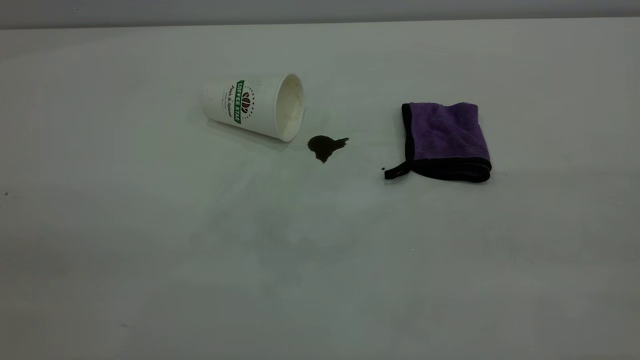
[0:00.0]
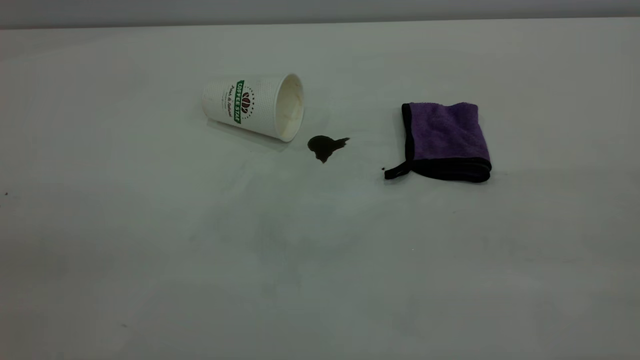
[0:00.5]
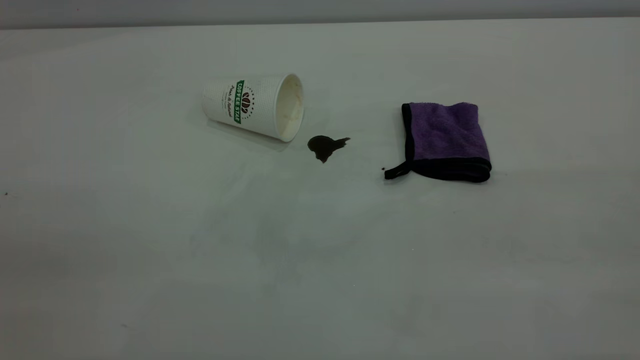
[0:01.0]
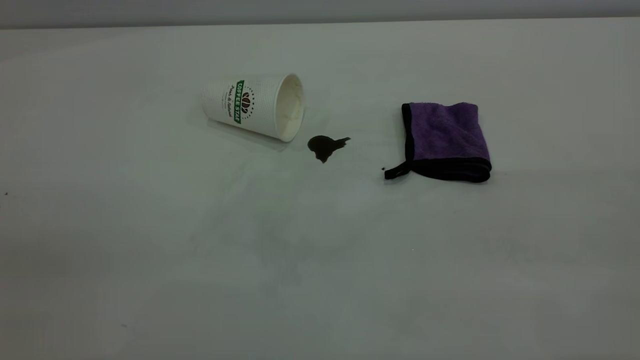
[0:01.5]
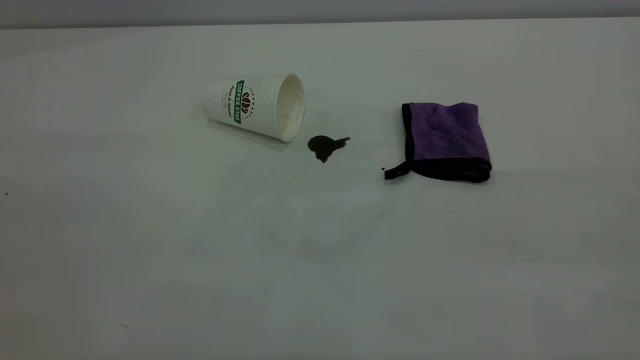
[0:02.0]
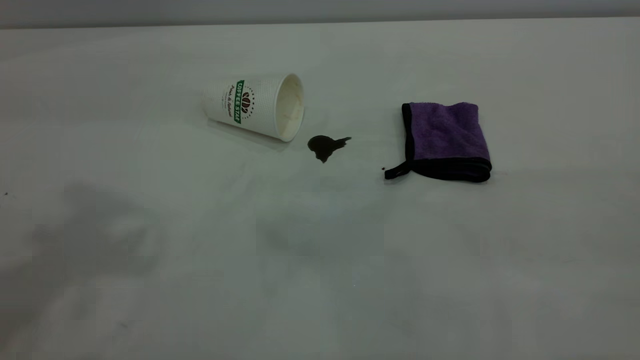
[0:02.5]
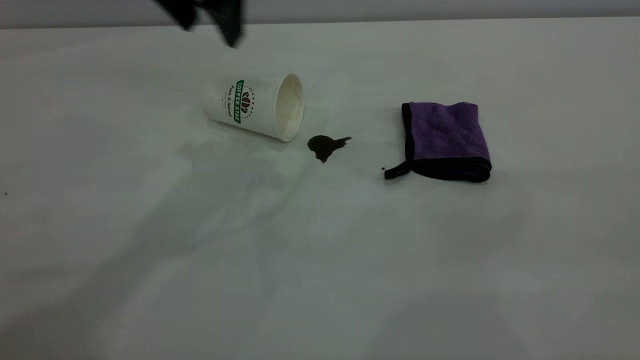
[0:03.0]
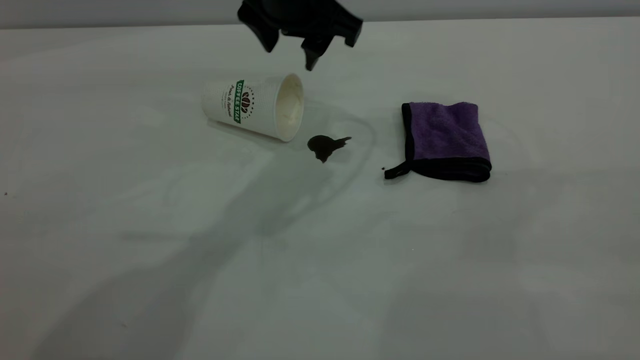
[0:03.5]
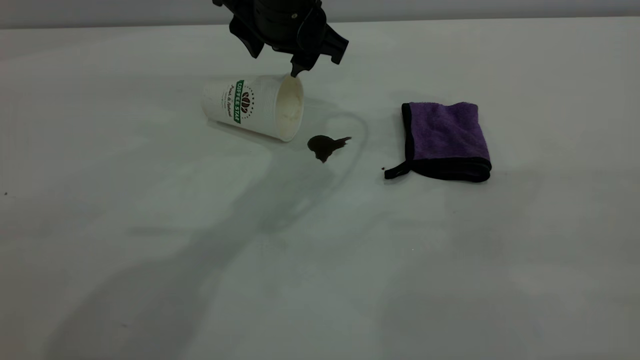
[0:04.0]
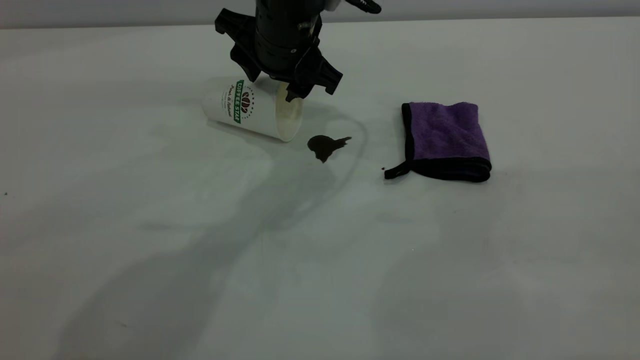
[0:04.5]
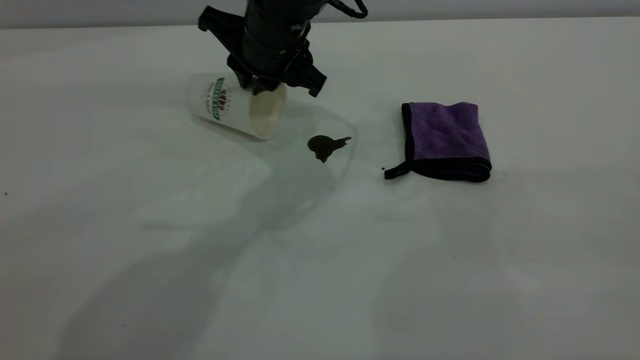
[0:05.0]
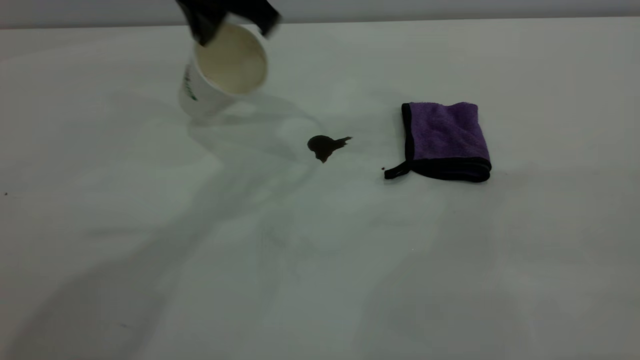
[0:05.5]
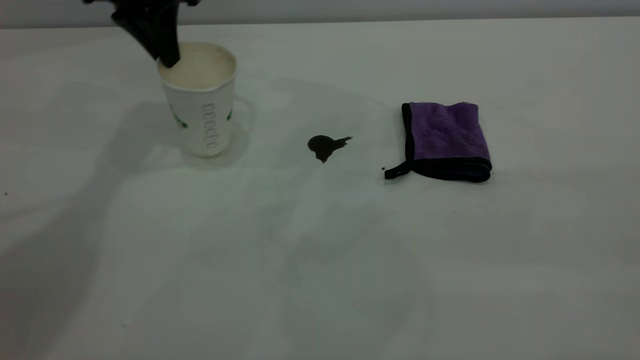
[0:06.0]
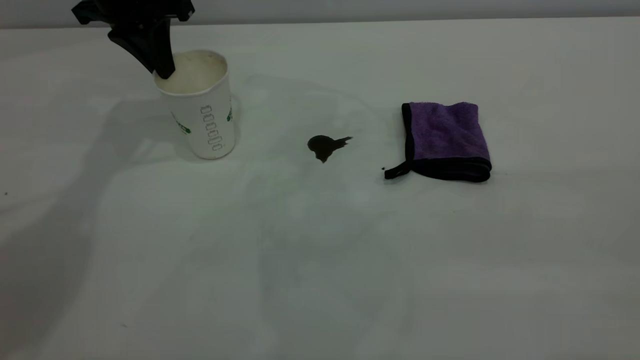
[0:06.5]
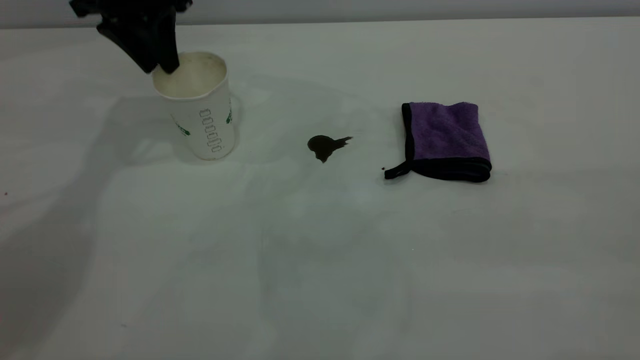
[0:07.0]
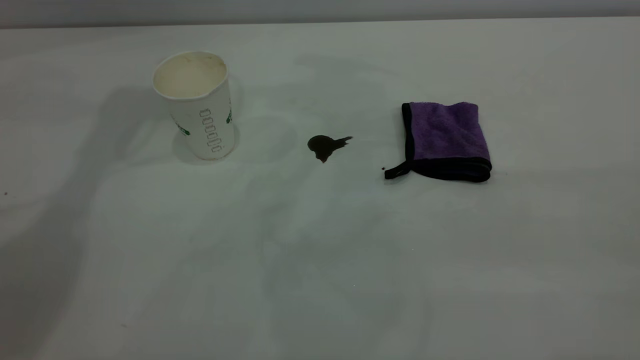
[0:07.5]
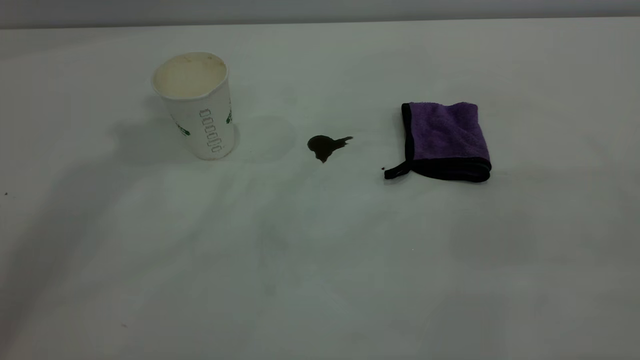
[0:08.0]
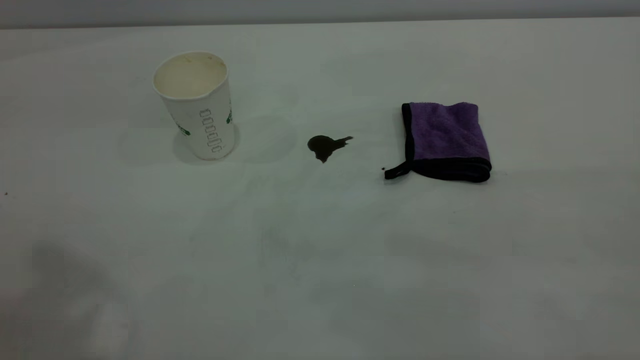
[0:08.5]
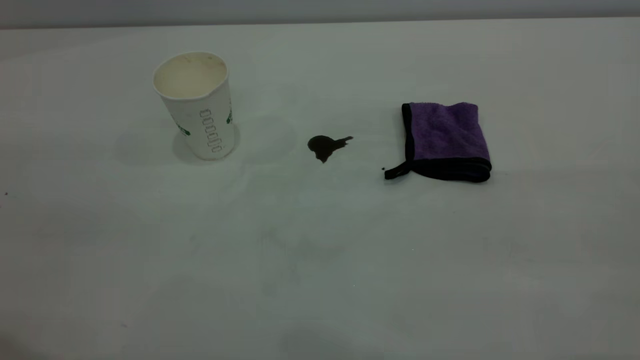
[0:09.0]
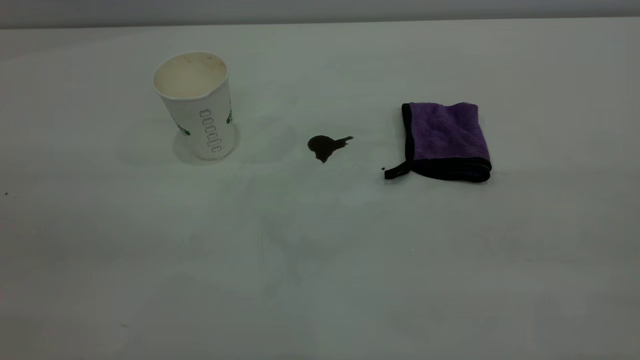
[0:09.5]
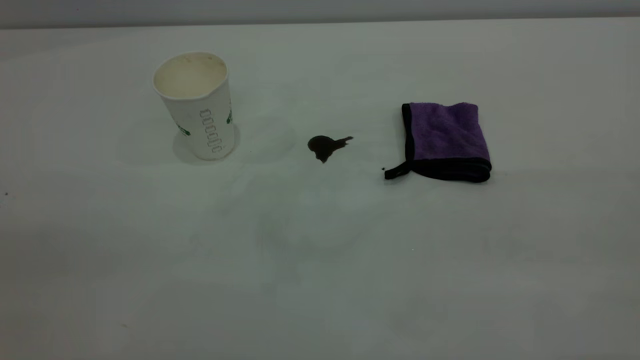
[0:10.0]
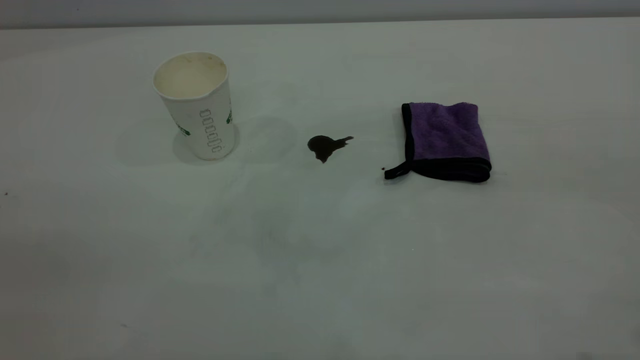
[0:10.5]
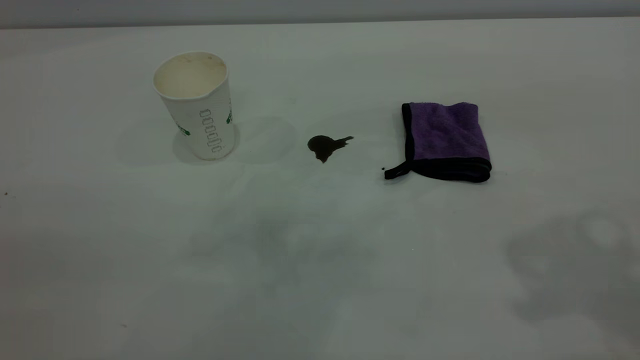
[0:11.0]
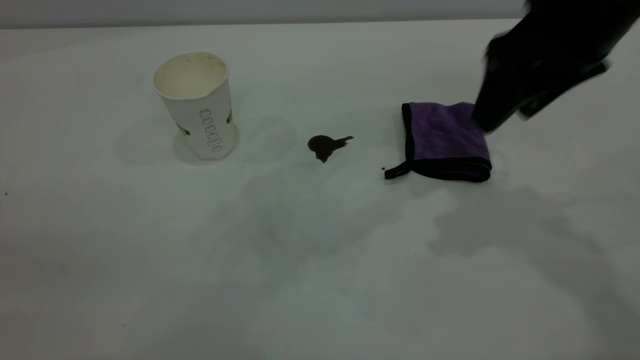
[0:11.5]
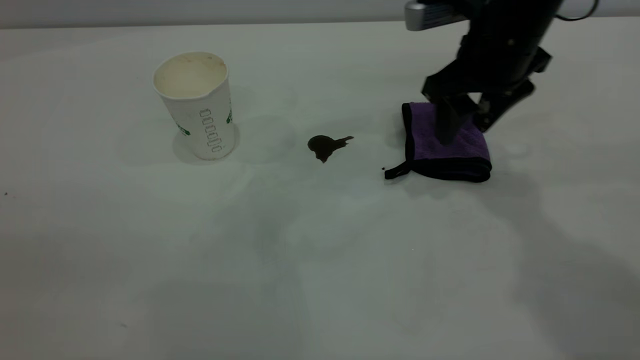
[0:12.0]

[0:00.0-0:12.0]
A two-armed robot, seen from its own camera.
Task of the whole recording: the left gripper pick up the fallen cup and place it upright, the right gripper grasp the purple rag and wipe the coffee stain on the table, the right gripper put the purple rag back in its original position.
Step, 0:00.0 to 0:07.0: Stand the paper cup upright.
0:02.0 to 0:04.0: The left gripper goes roughly 50 cm forward, to the right and downward.
0:04.0 to 0:06.0: The left gripper moves to the left, approximately 20 cm, and closes.
0:06.0 to 0:08.0: The left gripper shifts about 30 cm upward, and opens up.
0:10.0 to 0:12.0: The right gripper moves forward and downward, about 50 cm.

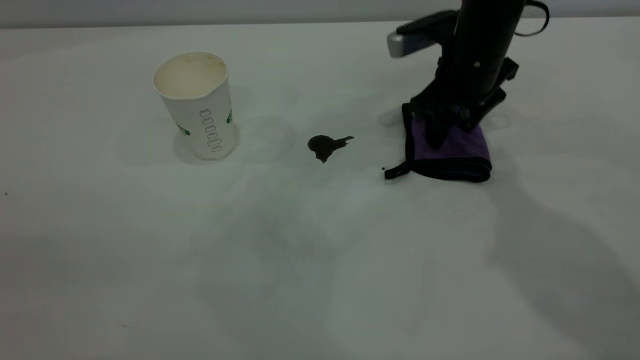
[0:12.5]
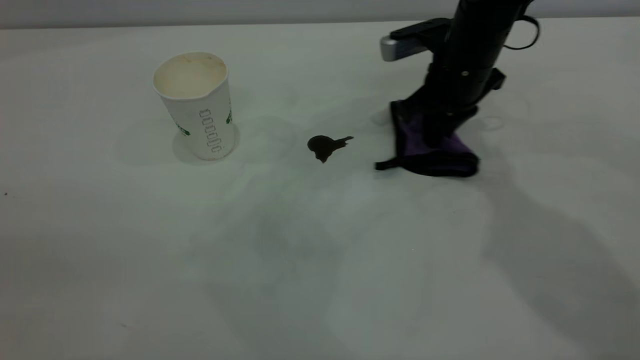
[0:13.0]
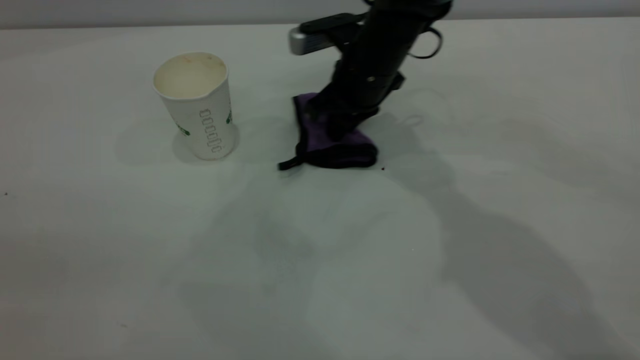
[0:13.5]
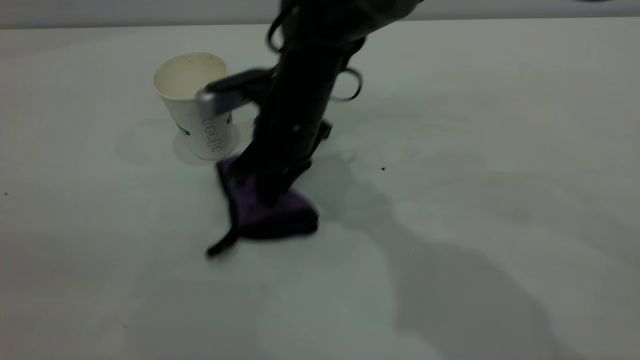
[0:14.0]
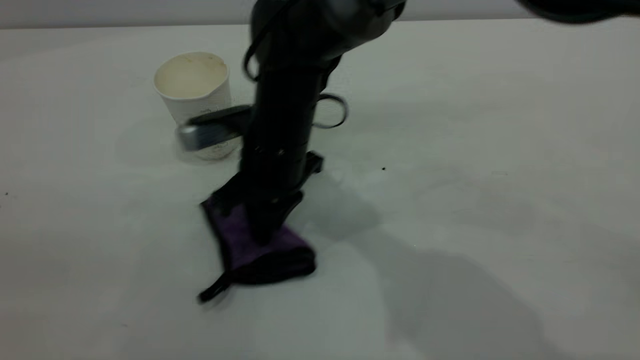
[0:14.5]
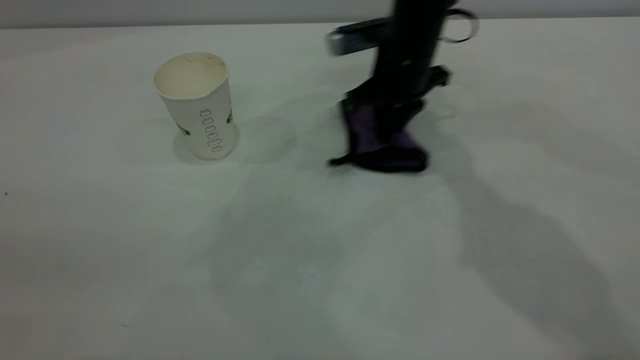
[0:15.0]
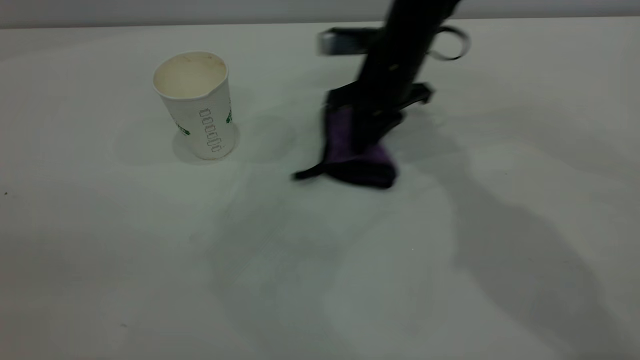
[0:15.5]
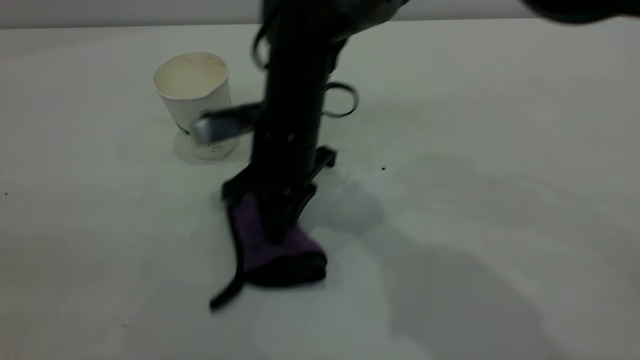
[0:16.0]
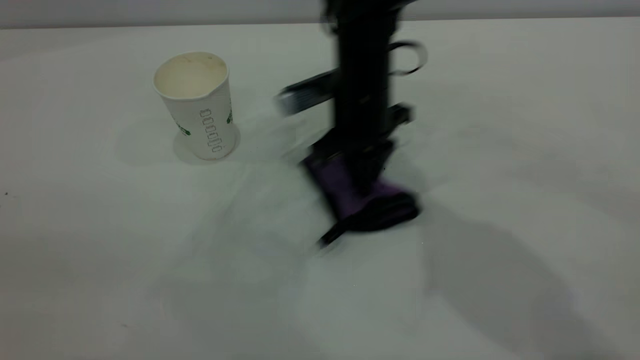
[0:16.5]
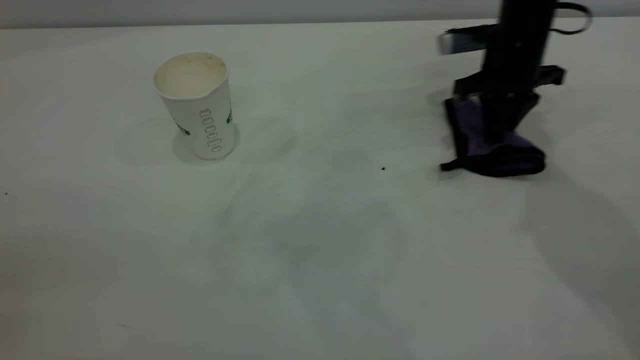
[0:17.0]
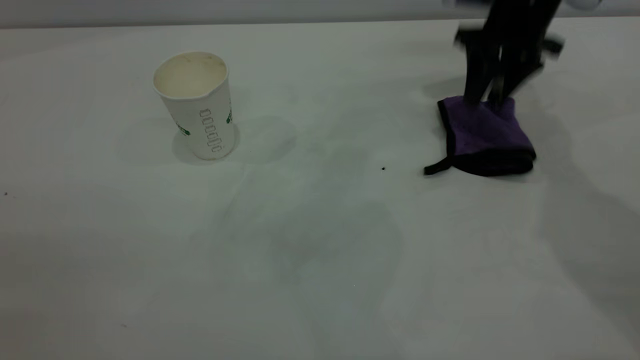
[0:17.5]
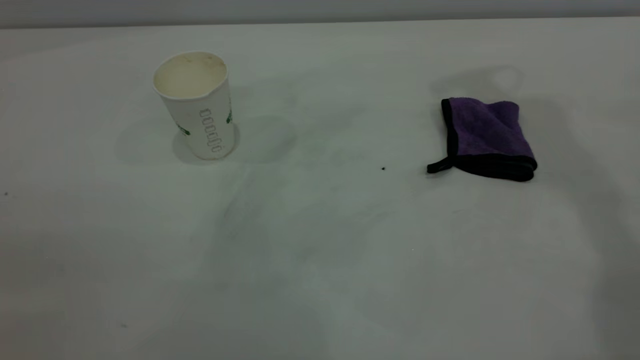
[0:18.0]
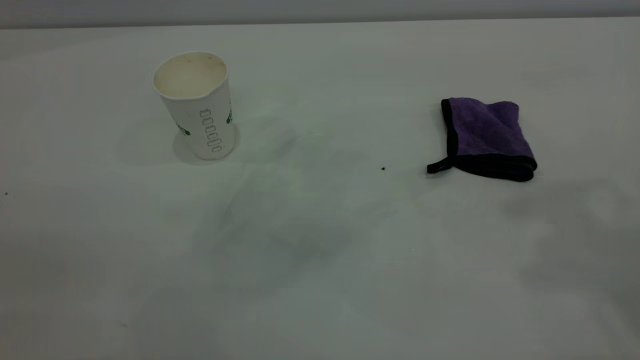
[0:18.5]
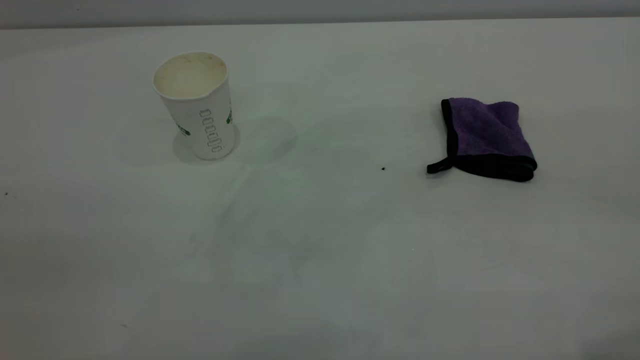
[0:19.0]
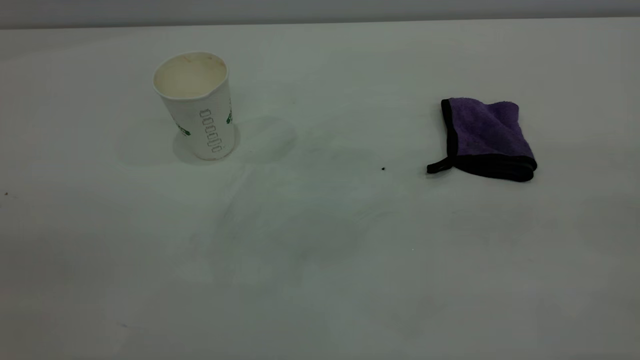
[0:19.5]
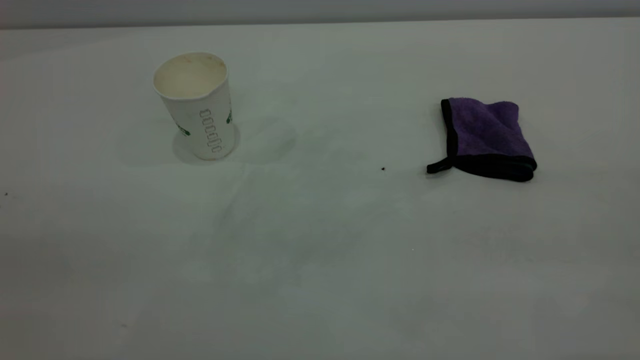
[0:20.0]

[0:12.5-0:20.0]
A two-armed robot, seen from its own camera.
Task of the whole recording: the left gripper pick up the fallen cup and place it upright, the right gripper grasp the purple rag and wipe the coffee stain on the table, the right gripper put the purple rag back in its original position.
Step, 0:12.5 to 0:17.5: Wipe the stains off the table with a rag.
0:12.5 to 0:14.5: The right gripper is displaced to the left and backward by about 20 cm, and closes its fingers.
0:14.5 to 0:16.5: The right gripper goes left and right, roughly 15 cm each way, reversing 2 times.
0:16.5 to 0:18.0: The right gripper is displaced upward and to the right by roughly 35 cm, and opens its fingers.
